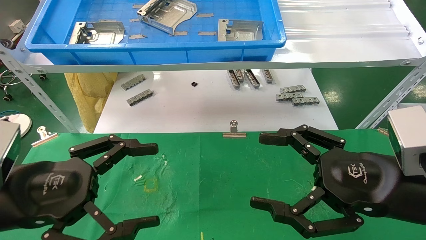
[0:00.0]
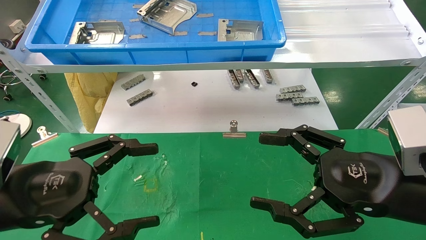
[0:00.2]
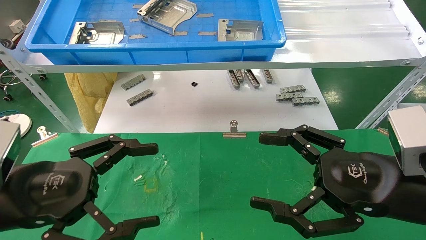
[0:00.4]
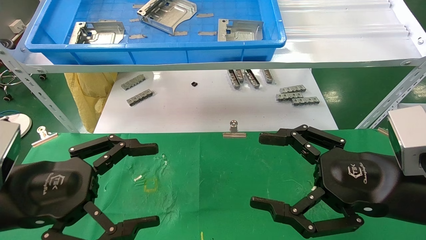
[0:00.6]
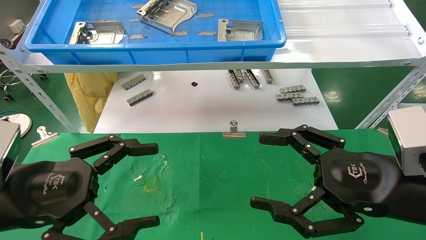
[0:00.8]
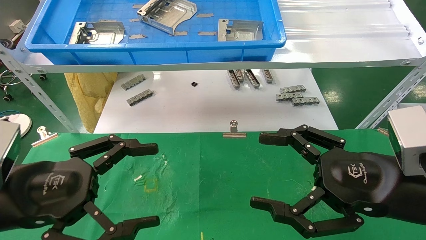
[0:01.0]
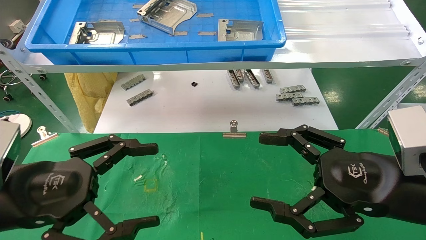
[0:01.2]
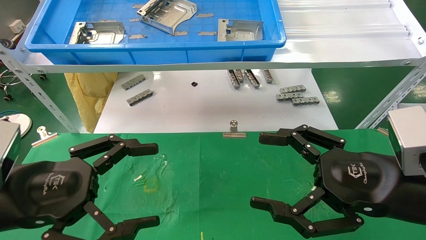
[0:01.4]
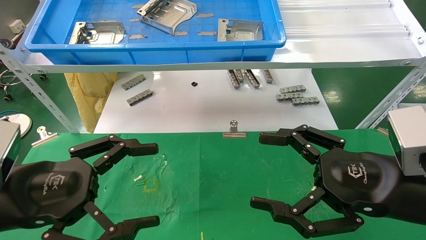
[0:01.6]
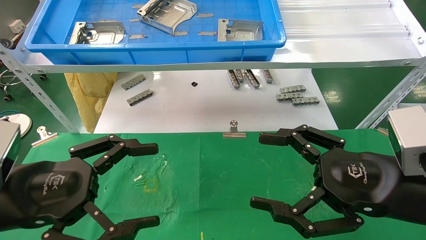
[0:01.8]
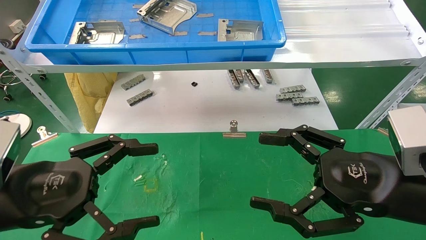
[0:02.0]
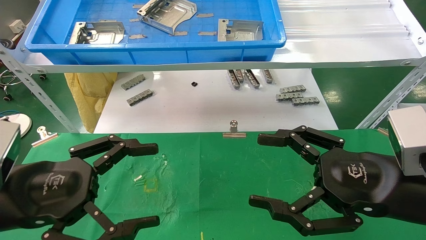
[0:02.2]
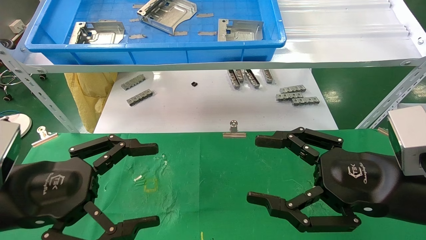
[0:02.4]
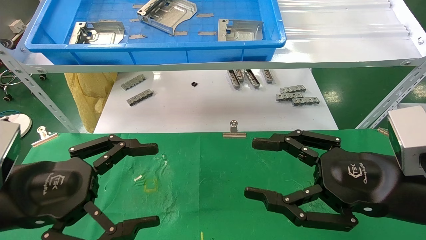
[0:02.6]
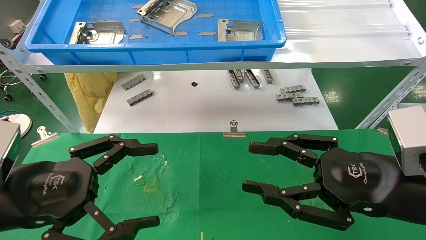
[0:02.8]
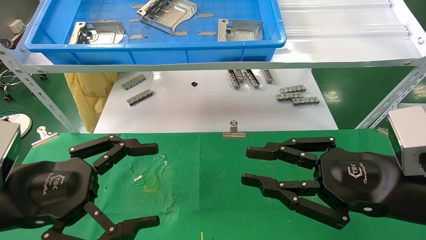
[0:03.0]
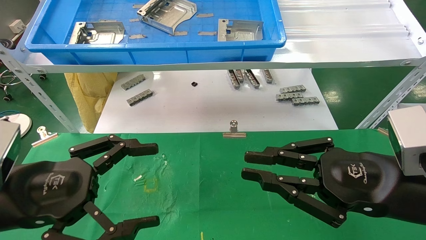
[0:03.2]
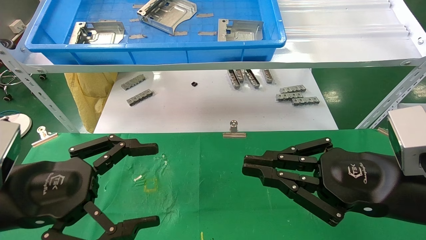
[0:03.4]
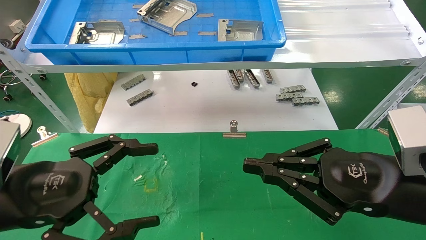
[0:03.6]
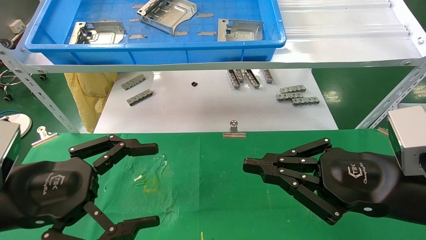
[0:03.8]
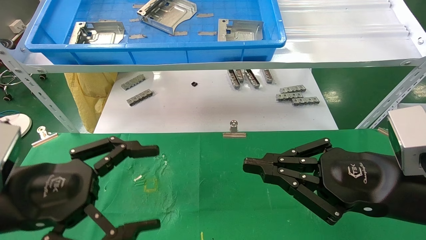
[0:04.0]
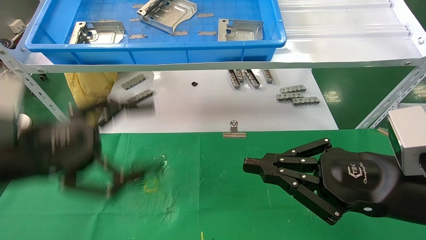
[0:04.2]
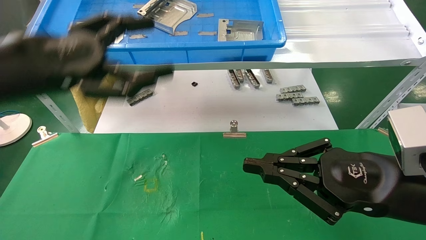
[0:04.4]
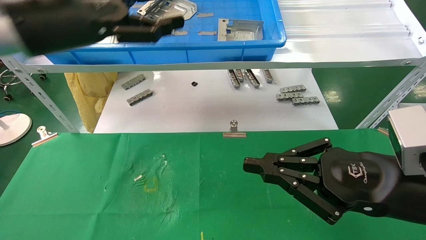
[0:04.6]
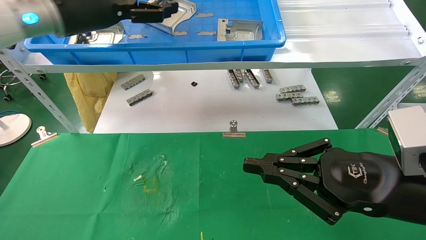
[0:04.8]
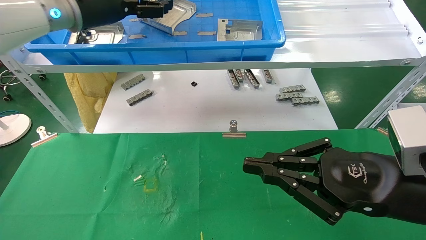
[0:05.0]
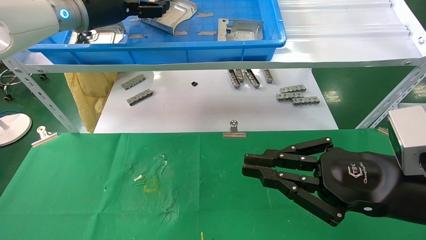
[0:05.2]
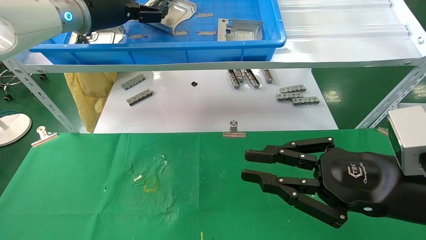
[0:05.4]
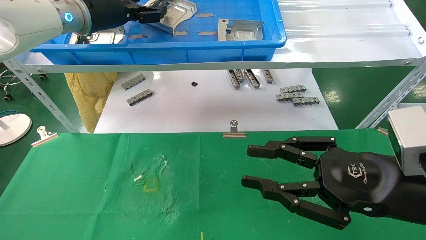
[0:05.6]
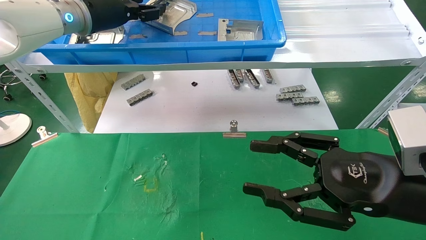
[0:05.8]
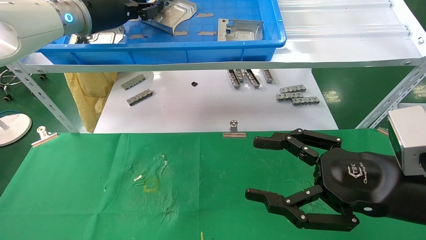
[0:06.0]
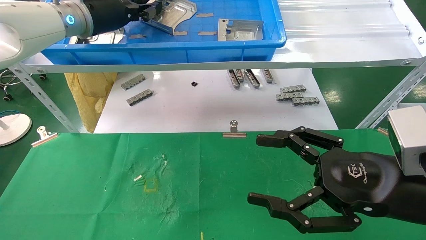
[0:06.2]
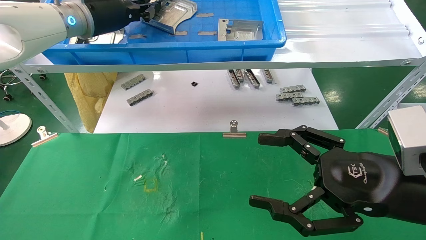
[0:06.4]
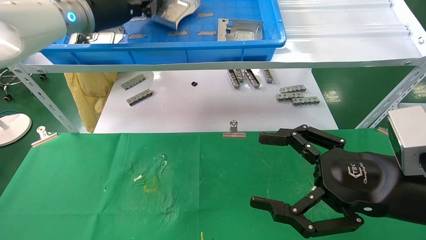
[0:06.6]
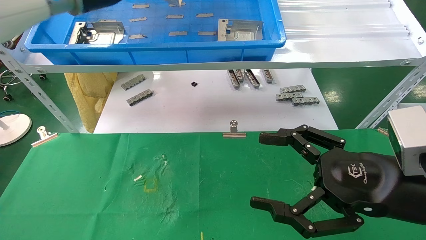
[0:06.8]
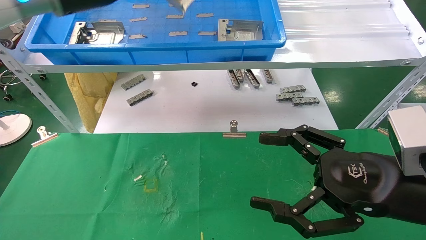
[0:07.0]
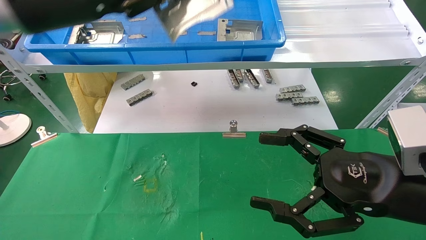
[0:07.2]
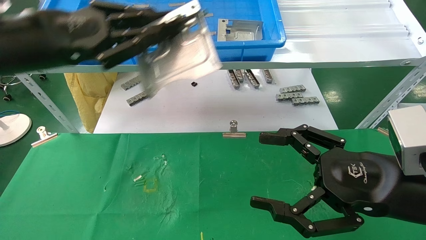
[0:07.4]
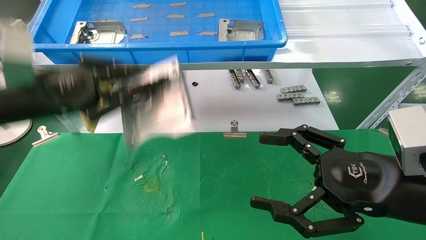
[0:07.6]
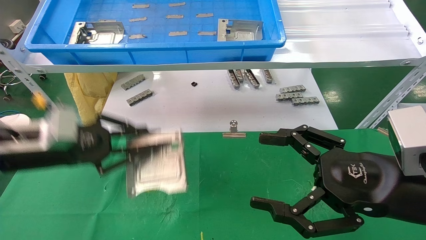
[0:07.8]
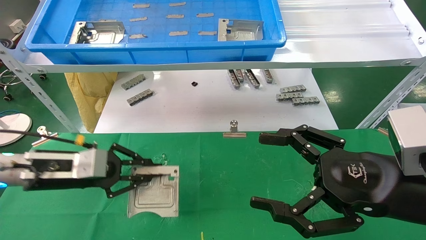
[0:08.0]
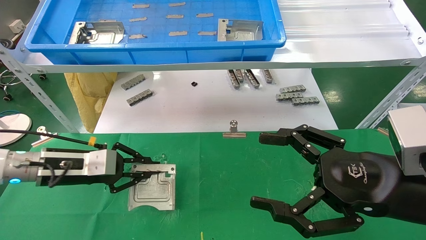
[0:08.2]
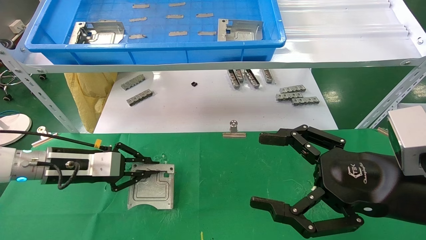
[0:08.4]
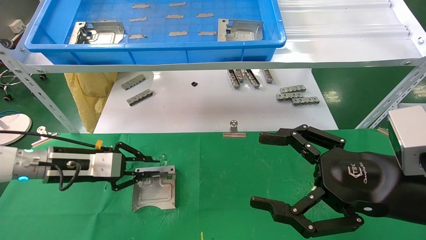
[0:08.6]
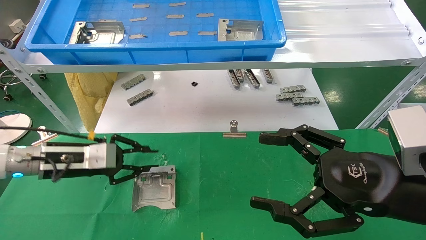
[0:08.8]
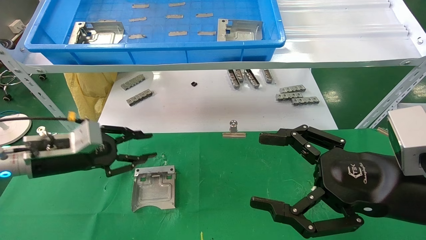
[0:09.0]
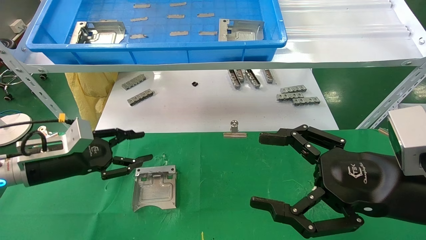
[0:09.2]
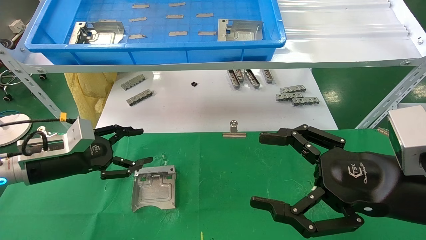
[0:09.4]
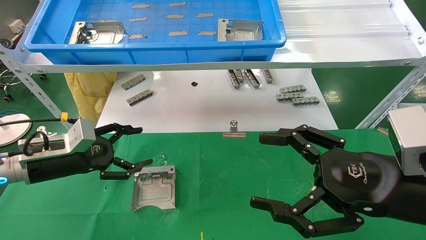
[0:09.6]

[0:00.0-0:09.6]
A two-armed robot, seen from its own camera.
Task of the whole recording: use the mechanical arm to pick up the parts and place them on the table.
Step, 0:04.6 to 0:06.2: Pick up the hard drive bracket from the feeding area.
Step, 0:06.4 to 0:09.2: Place the hard drive bracket into the box.
0:00.0 to 0:01.6: Neither gripper changes place.
0:01.6 to 0:03.2: The right gripper closes its fingers.
0:03.2 to 0:04.8: The left gripper moves upward and forward, roughly 30 cm.
0:04.8 to 0:06.4: The left gripper moves forward, approximately 5 cm, and closes up; the right gripper opens up.
0:06.4 to 0:08.0: The left gripper shifts roughly 25 cm downward.
0:08.0 to 0:09.6: The left gripper opens its fingers.

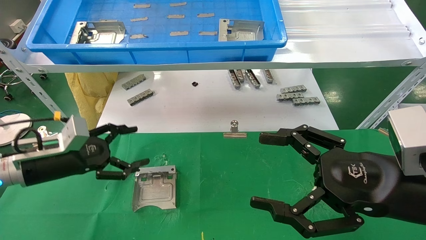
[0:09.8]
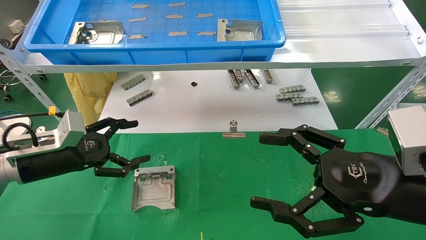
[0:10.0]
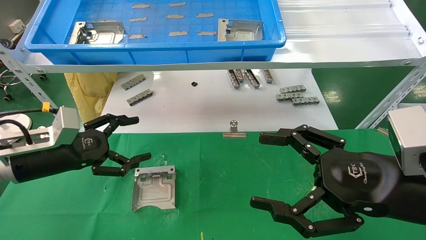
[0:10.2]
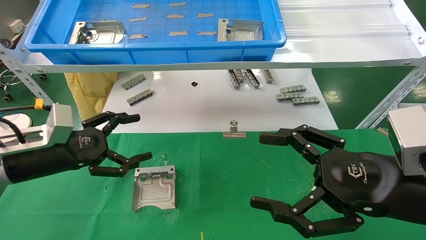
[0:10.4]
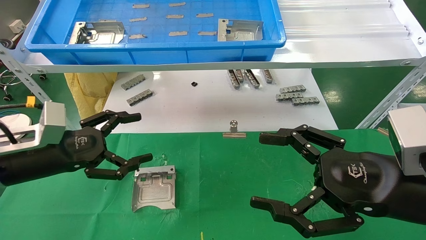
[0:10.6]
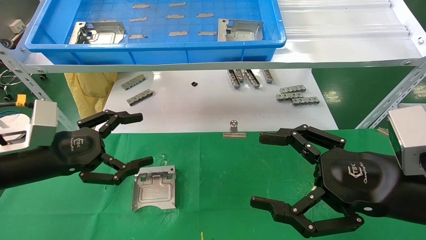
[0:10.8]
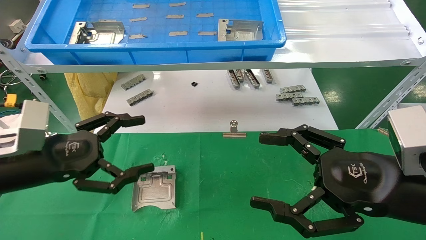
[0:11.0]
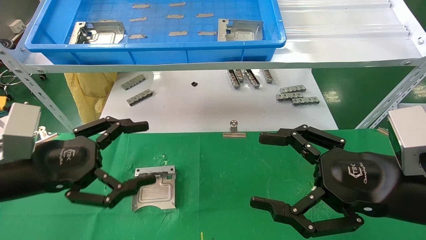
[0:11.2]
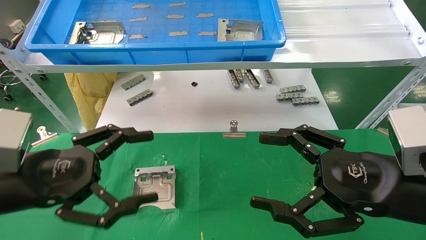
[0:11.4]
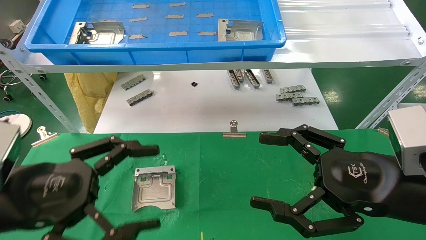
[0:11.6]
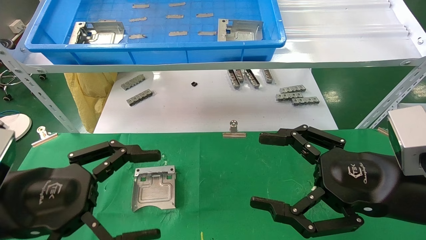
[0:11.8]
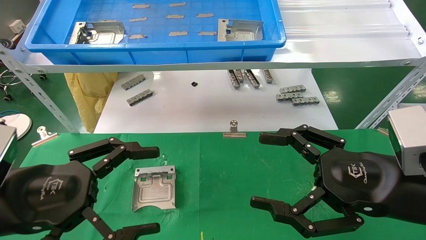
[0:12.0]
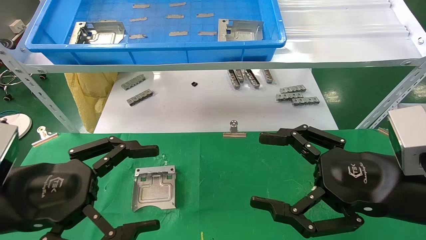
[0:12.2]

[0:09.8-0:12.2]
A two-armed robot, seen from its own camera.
Task of the whole recording: use the mechanical arm to pick up the parts and place them on the table.
0:09.8 to 0:11.0: The left gripper shifts about 10 cm backward.
0:11.0 to 0:12.2: The left gripper shifts about 10 cm backward.
